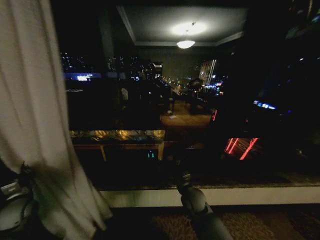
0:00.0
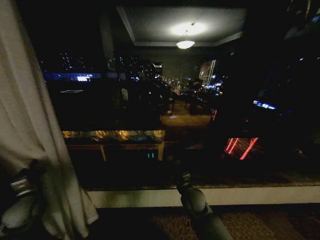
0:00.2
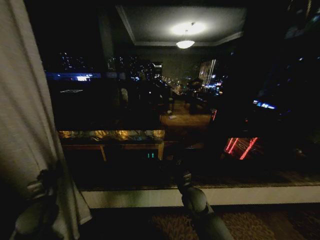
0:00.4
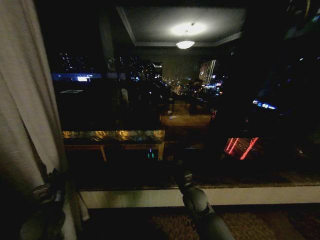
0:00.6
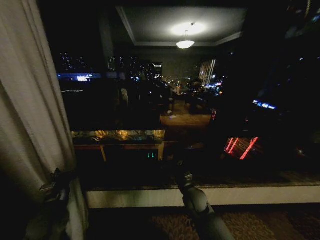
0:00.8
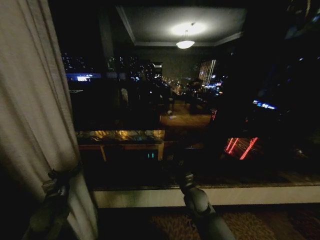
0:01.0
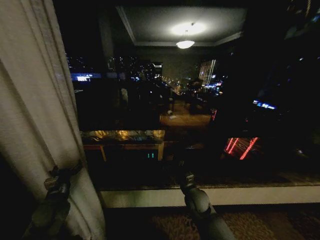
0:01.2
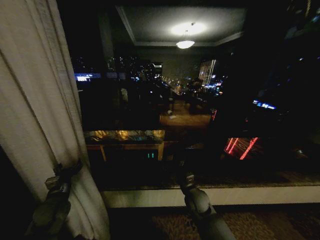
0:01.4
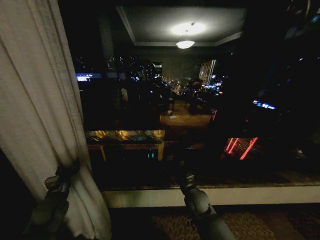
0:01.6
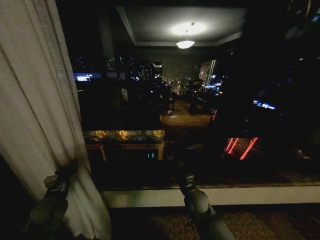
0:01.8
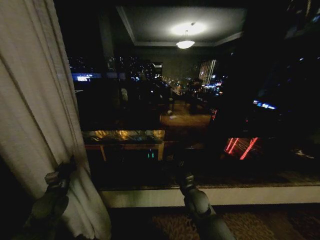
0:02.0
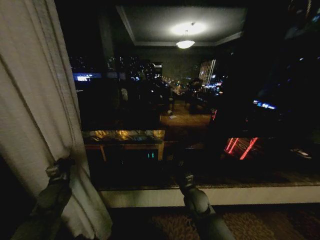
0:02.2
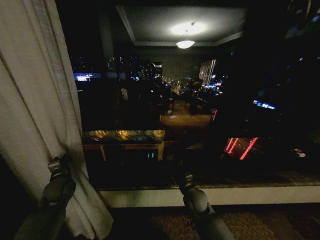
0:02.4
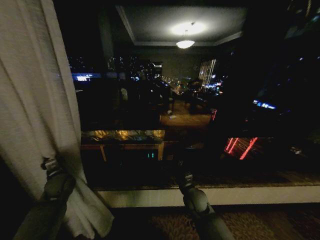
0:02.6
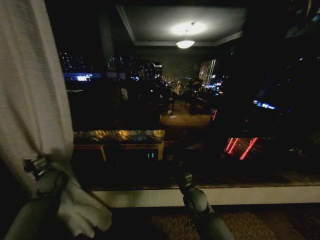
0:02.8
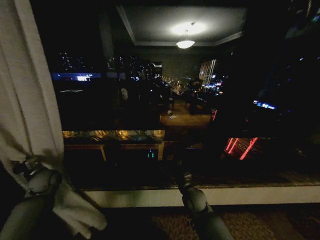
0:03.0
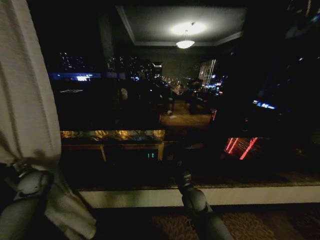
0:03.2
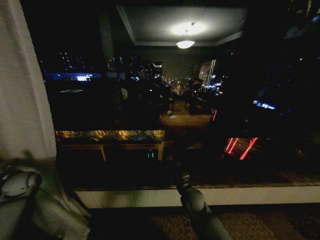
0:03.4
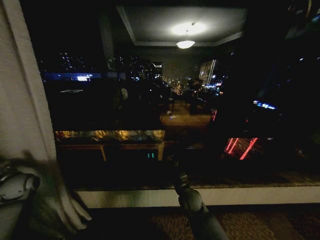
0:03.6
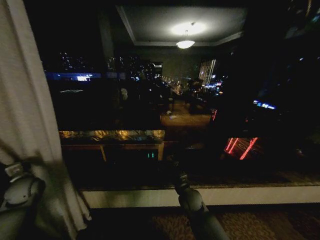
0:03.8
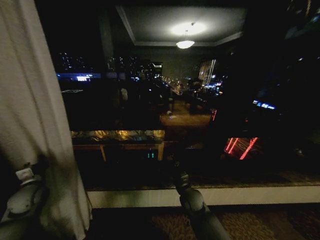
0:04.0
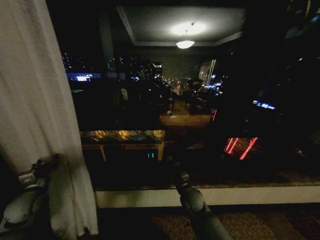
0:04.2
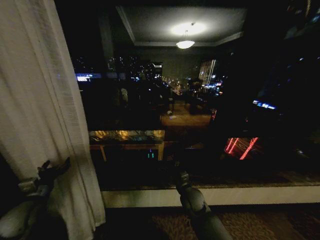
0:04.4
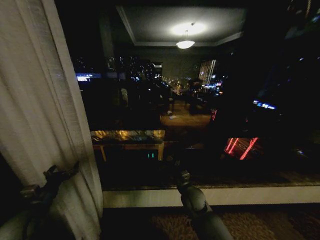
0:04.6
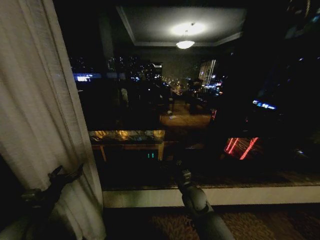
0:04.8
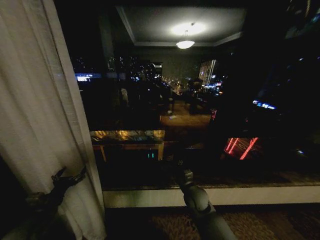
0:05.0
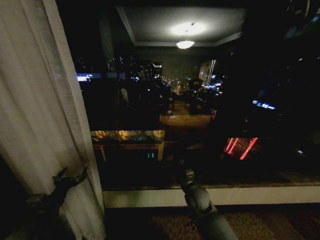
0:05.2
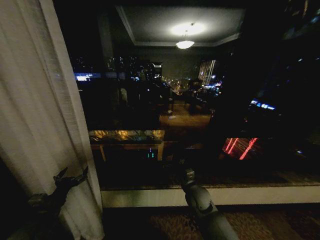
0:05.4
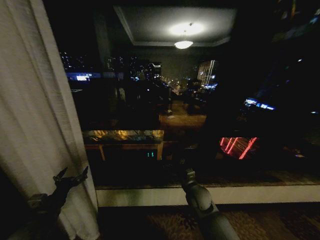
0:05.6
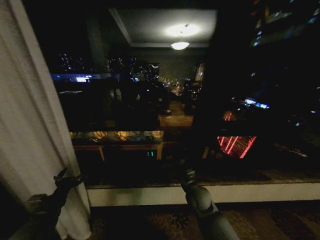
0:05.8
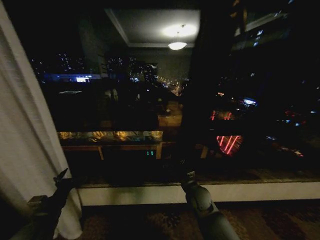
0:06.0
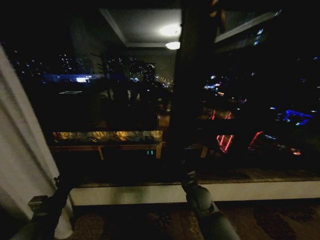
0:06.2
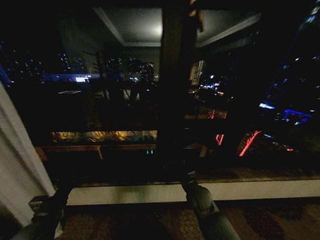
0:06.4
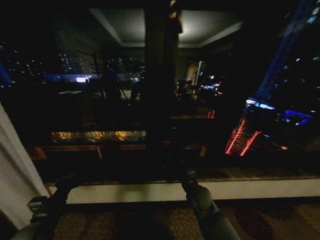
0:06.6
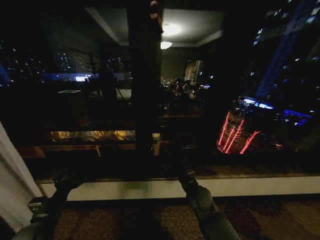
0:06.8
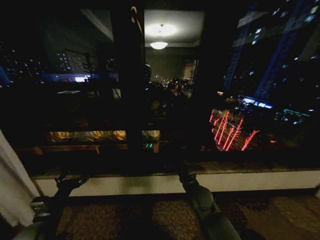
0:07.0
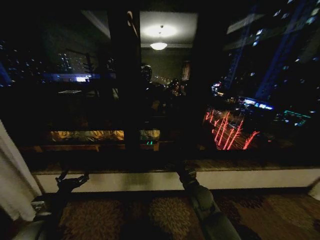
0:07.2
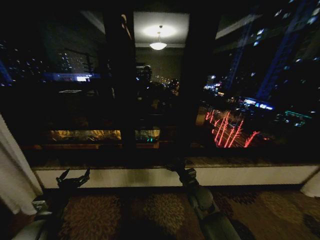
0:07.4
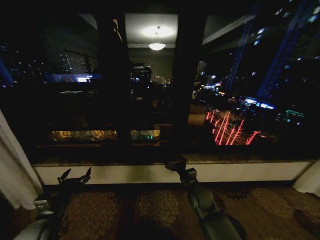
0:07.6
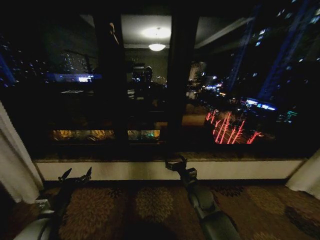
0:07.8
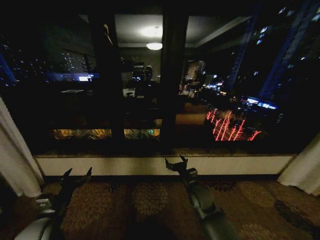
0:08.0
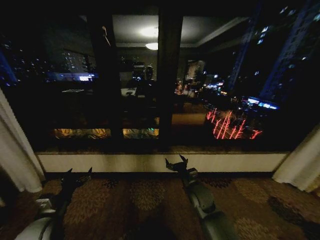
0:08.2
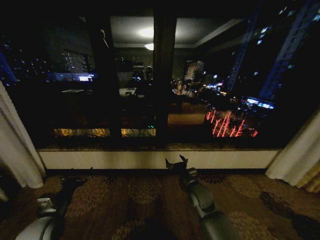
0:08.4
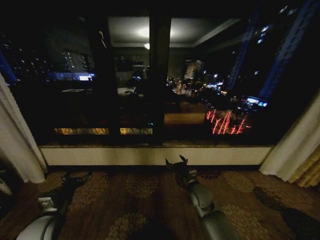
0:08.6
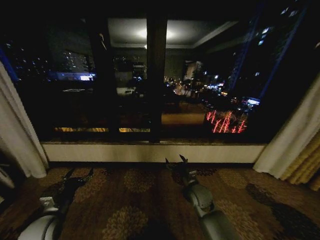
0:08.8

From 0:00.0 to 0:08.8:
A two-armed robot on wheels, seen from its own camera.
Task of the whole recording: Open the curtains by pulling them apart, changing their state from closed to fully open.
From 0:00.0 to 0:01.4: The left gripper heads to the right, covering some 10 cm, and opens up.
From 0:01.4 to 0:03.0: The left gripper moves forward and to the left, some 15 cm, and closes up.
From 0:03.0 to 0:04.4: The left gripper heads backward, covering some 15 cm, and opens up.
From 0:04.4 to 0:05.8: The left gripper shifts approximately 10 cm to the right and backward.

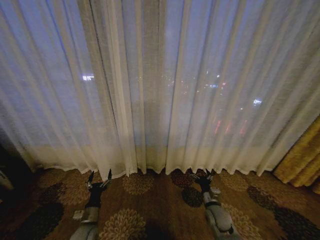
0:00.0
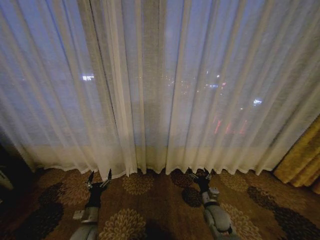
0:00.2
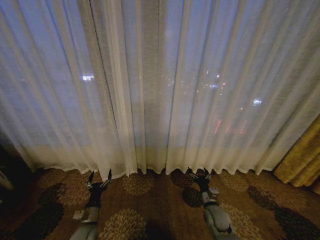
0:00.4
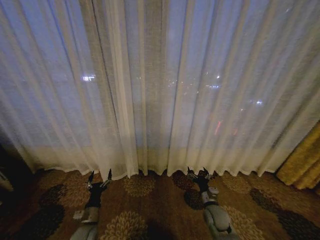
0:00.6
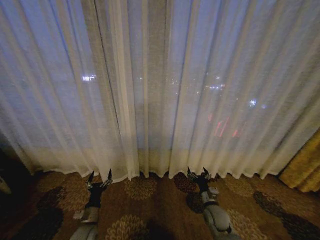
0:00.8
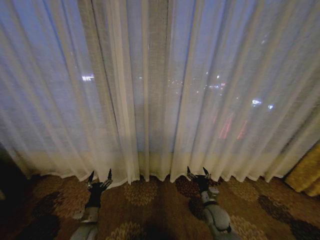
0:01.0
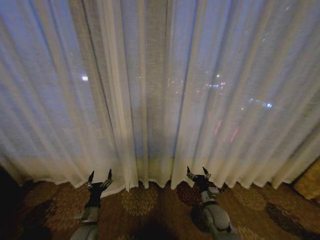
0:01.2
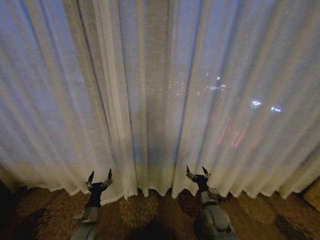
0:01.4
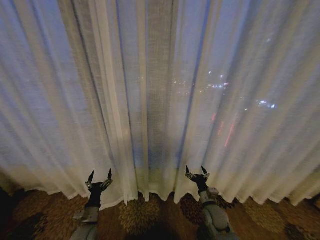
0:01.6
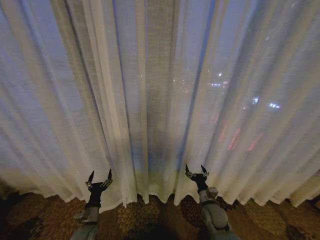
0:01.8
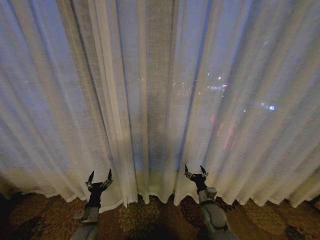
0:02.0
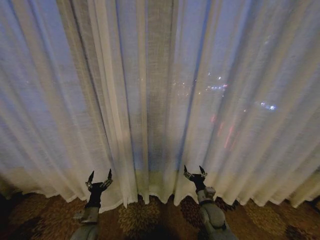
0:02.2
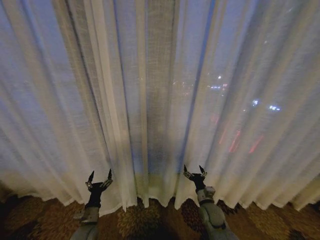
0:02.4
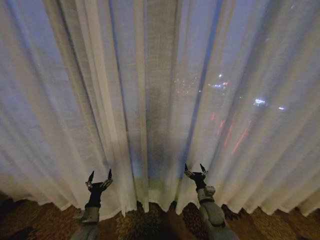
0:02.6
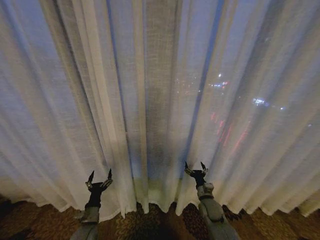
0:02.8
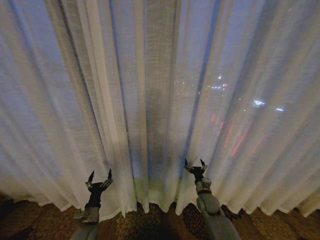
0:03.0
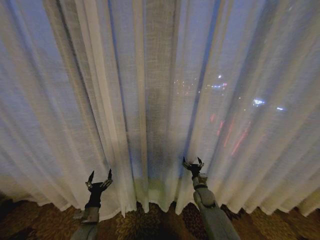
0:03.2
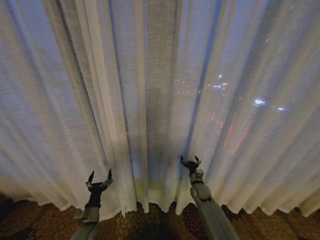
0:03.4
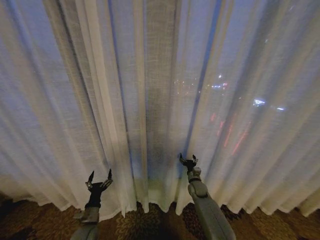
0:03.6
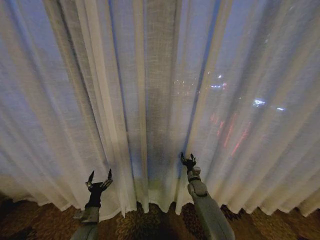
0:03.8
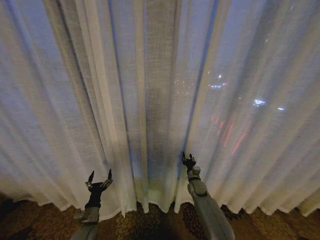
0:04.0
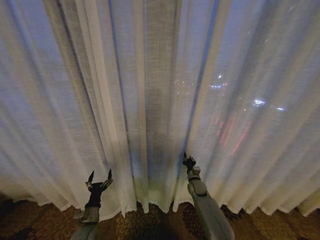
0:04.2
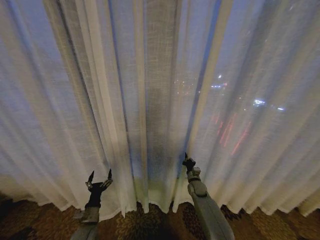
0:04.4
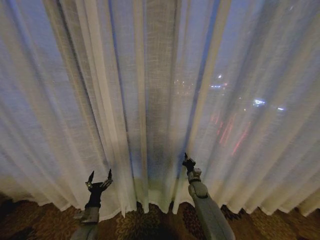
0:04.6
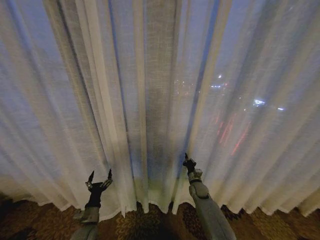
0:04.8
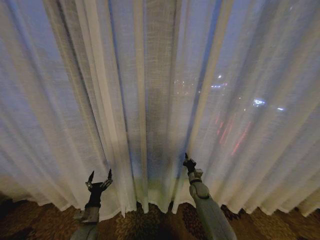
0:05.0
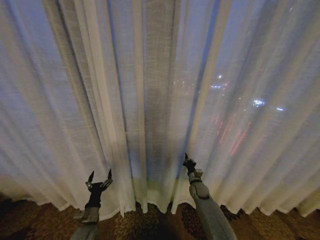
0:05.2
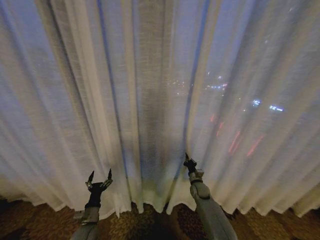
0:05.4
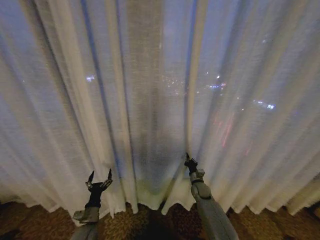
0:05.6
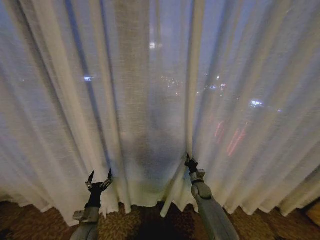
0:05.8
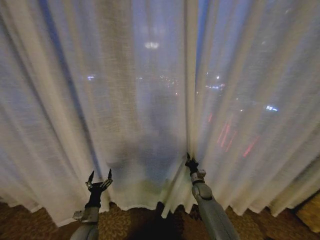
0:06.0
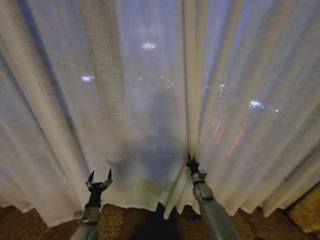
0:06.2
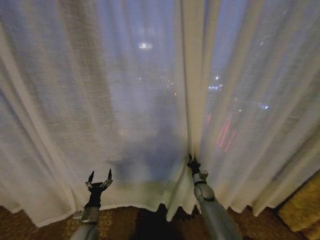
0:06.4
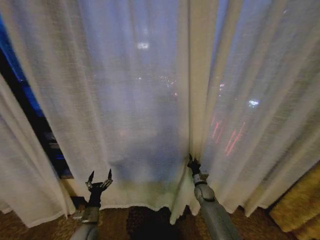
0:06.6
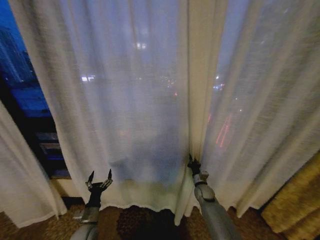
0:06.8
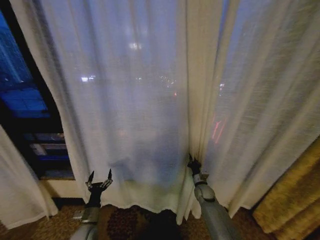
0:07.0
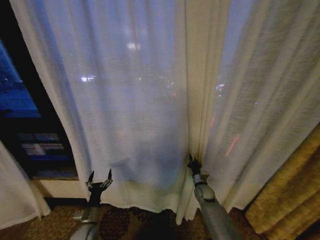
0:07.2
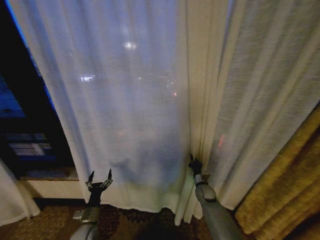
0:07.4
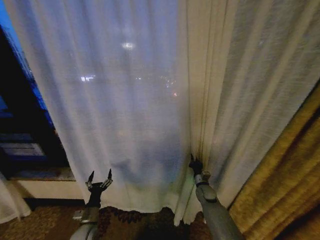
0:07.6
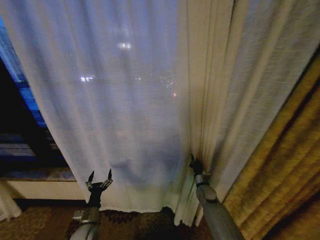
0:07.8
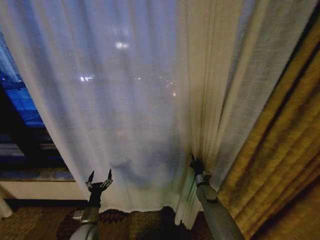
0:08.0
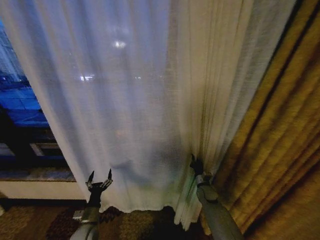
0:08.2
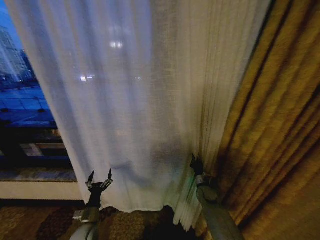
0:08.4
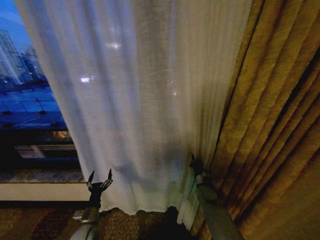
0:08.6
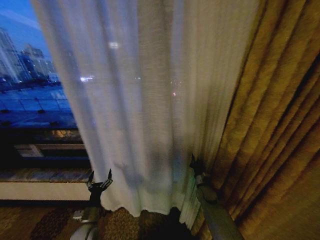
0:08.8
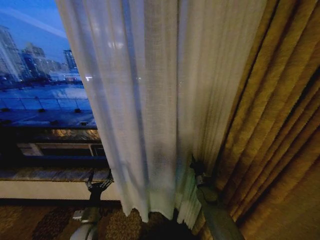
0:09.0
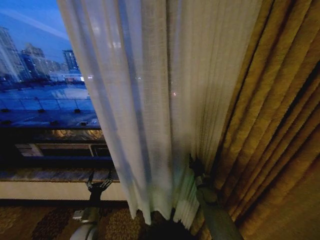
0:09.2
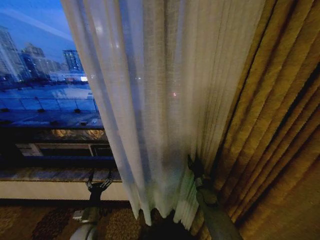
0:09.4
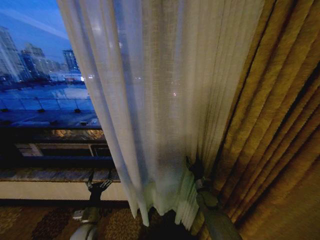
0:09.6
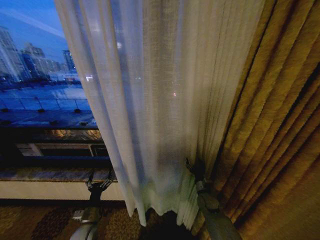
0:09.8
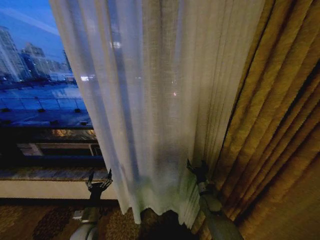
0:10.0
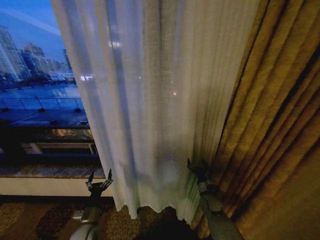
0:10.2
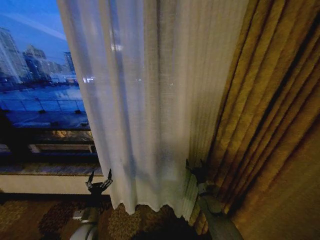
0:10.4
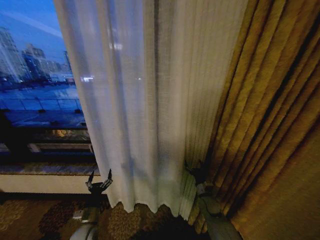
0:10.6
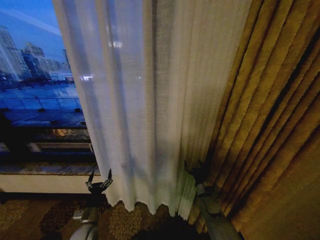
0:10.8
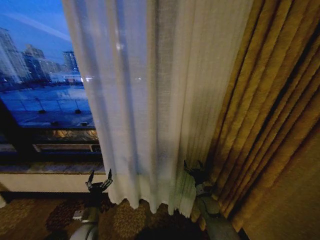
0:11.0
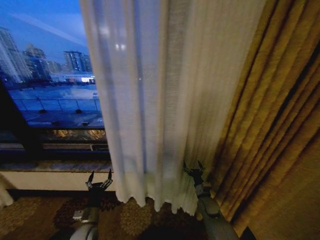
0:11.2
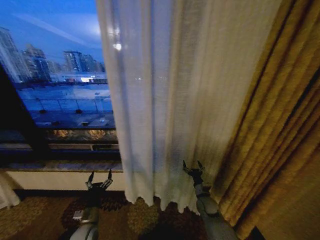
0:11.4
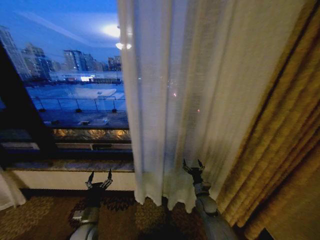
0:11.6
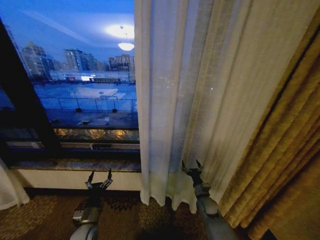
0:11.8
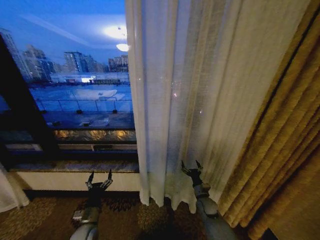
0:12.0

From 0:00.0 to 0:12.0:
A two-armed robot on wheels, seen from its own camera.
Task of the whole recording: Open the curtains by pulling them apart, changing their state from closed to fully open.
From 0:01.6 to 0:03.0: The right gripper travels forward by approximately 5 cm.
From 0:03.0 to 0:04.4: The right gripper travels forward by roughly 10 cm, and closes.
From 0:04.4 to 0:06.0: The grippers stay close to where they were, moving slightly.
From 0:09.0 to 0:10.4: The right gripper ends up roughly 5 cm from where it was, and opens.

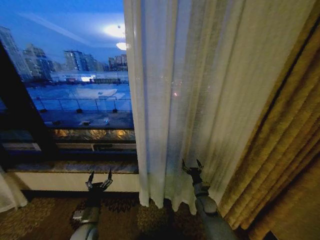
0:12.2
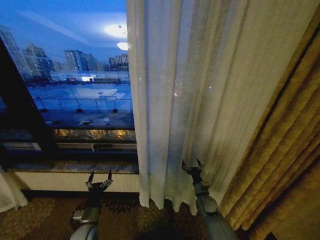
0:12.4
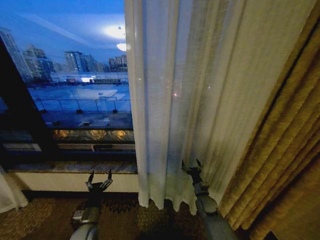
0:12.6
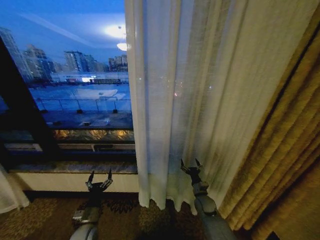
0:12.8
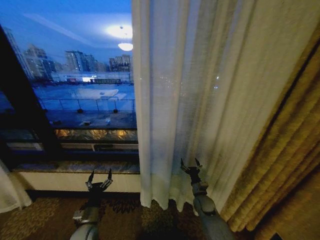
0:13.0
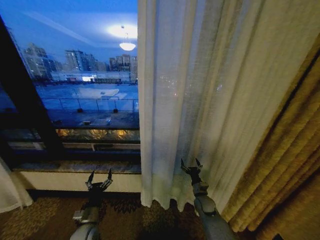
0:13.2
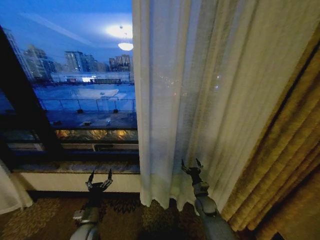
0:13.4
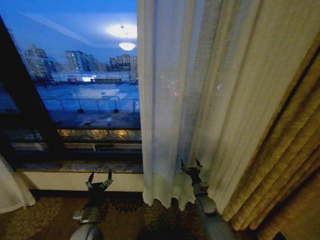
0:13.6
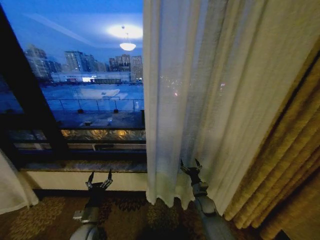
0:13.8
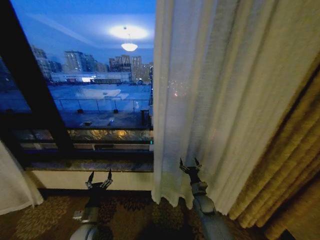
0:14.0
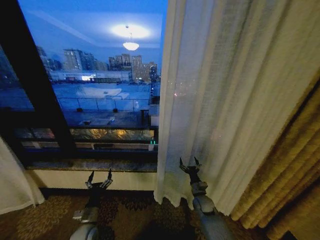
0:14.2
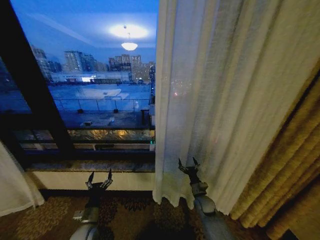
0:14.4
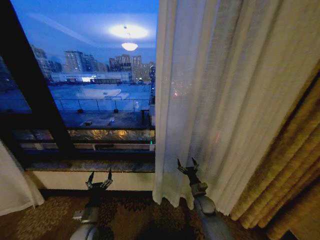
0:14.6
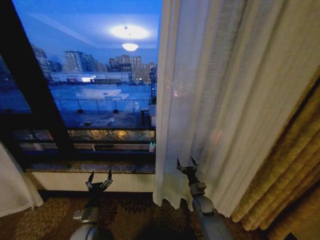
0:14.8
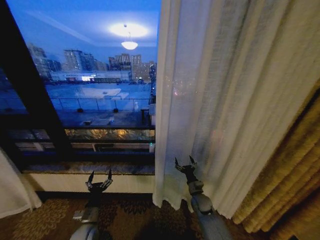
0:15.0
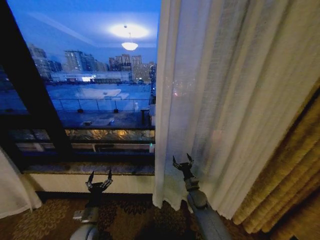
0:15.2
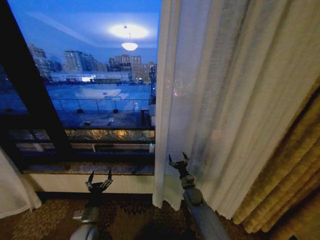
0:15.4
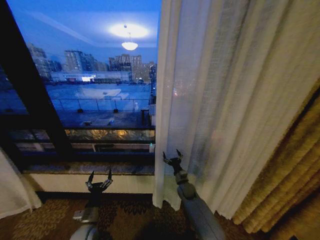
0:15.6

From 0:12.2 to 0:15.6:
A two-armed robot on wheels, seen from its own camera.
Task of the whole recording: Open the curtains by pulling them apart, changing their state from closed to fully open.
From 0:12.2 to 0:13.8: The two grippers keep their place.
From 0:13.8 to 0:15.6: The right gripper is displaced to the left and forward by about 10 cm.
